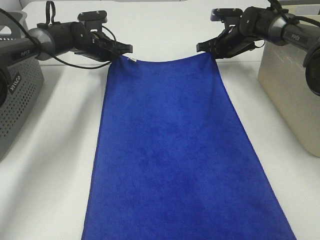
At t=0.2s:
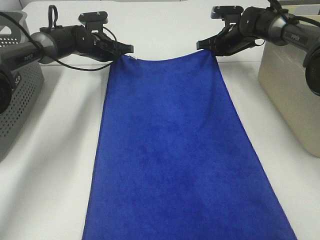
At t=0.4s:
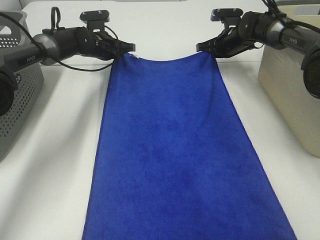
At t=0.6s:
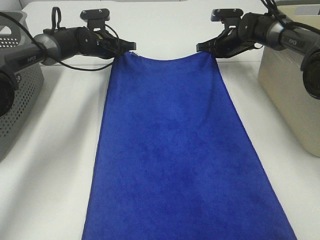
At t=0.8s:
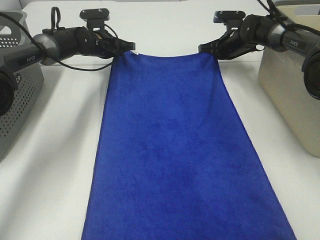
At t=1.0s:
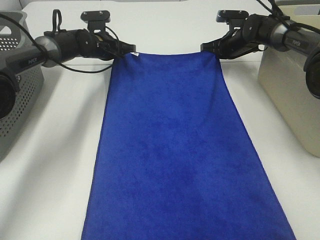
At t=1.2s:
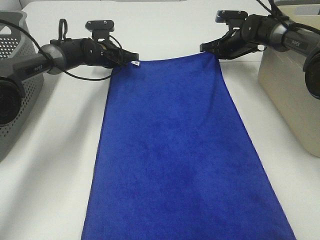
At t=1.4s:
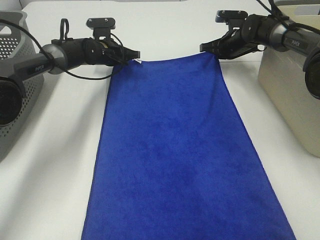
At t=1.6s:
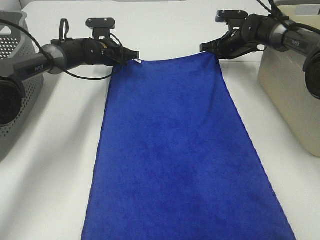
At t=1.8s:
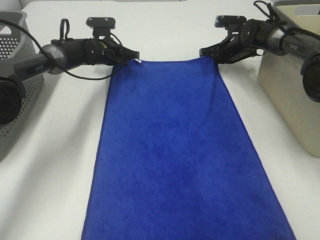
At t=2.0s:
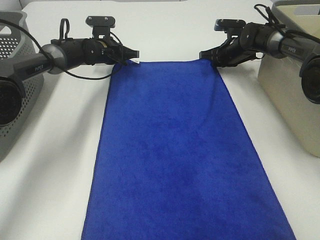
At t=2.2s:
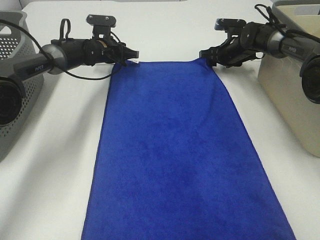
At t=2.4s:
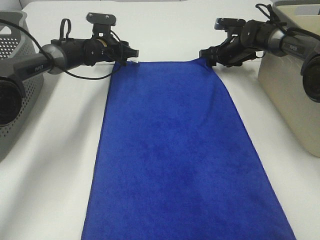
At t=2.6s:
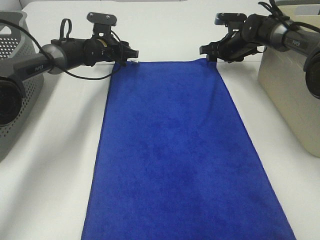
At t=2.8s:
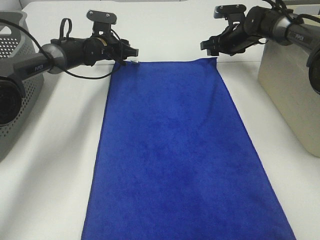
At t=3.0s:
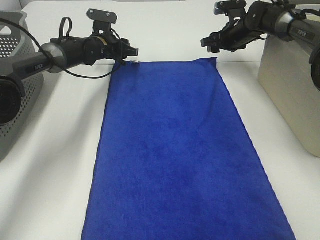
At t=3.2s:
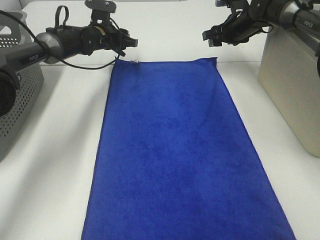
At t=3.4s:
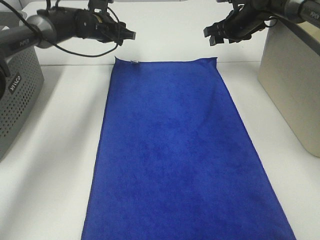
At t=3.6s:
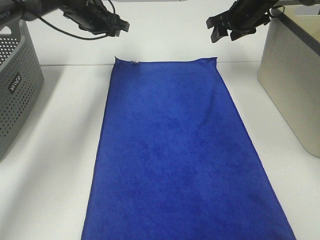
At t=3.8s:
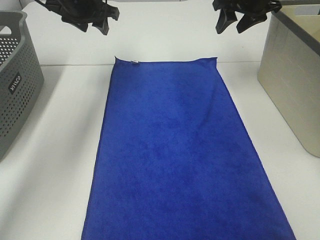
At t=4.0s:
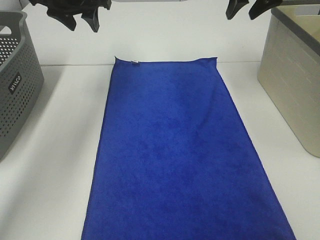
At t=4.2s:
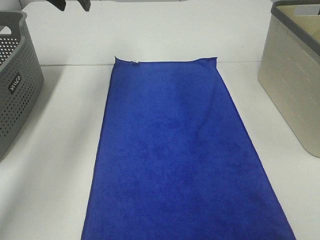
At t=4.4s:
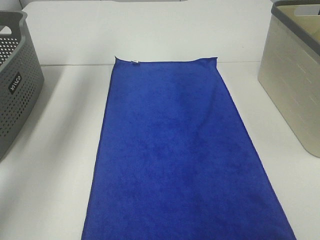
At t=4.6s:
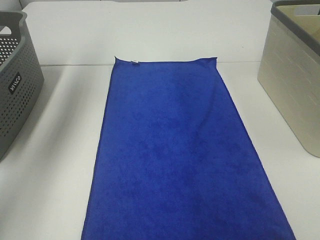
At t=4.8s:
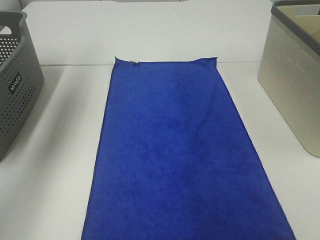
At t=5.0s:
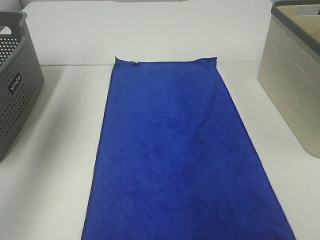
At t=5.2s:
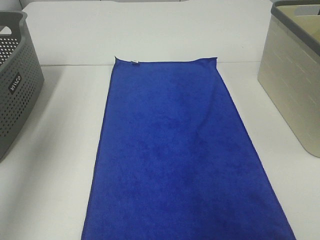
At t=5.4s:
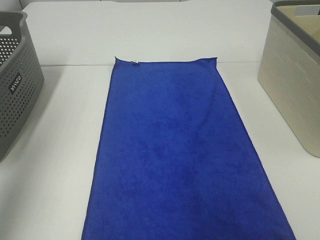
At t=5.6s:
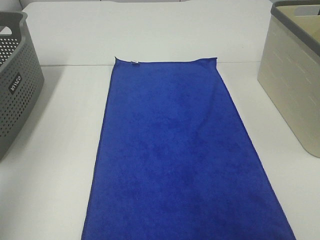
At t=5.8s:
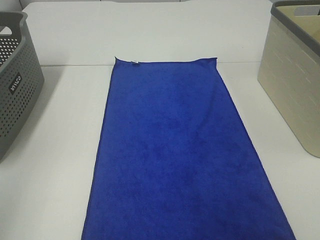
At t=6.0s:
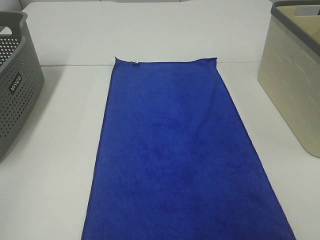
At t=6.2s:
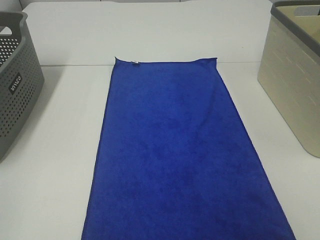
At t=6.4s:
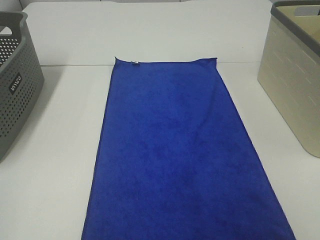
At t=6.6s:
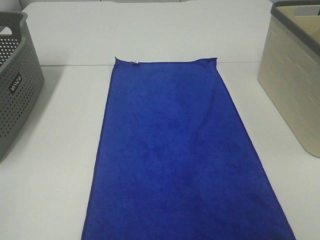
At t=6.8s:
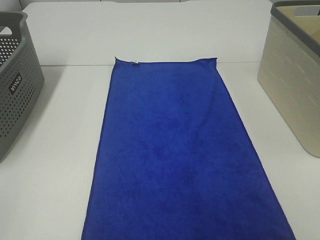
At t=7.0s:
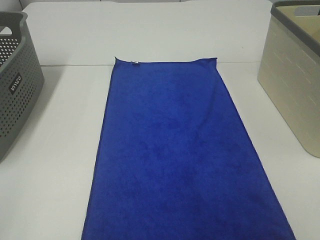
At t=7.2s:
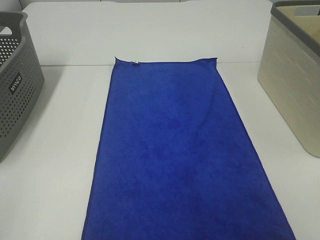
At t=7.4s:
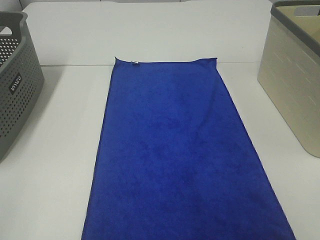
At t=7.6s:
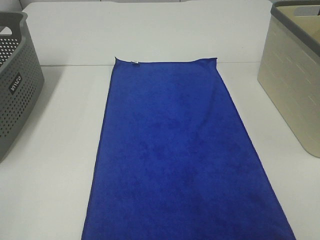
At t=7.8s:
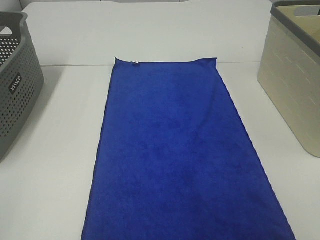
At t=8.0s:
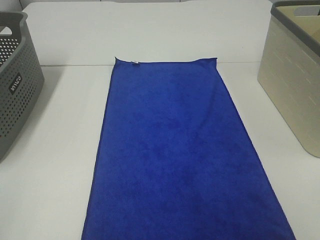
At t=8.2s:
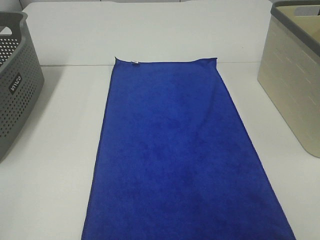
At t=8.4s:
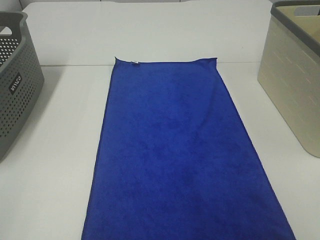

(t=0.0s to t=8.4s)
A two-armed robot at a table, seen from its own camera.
Task of the whole recording: Remove the towel and place it.
t=0.0s - t=1.4s: The grippers make only small movements.
t=1.4s - t=2.8s: The left gripper opens up. Meanwhile the right gripper opens.
t=2.8s - t=4.2s: The grippers both shift upward and backward by about 25 cm.
t=4.2s - t=5.6s: The left gripper moves backward, roughly 35 cm.
t=5.6s - t=7.0s: The left gripper goes about 15 cm backward and downward.

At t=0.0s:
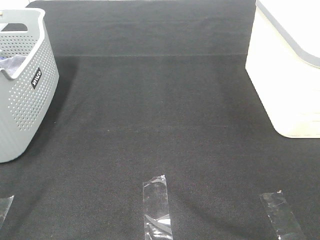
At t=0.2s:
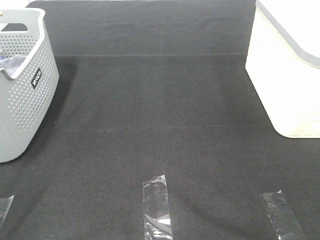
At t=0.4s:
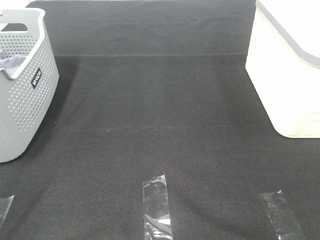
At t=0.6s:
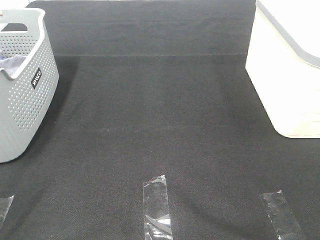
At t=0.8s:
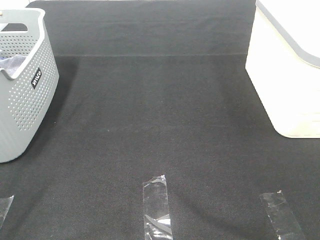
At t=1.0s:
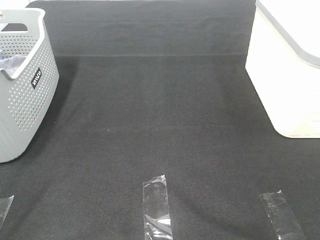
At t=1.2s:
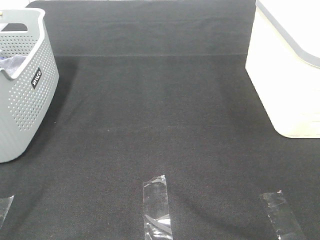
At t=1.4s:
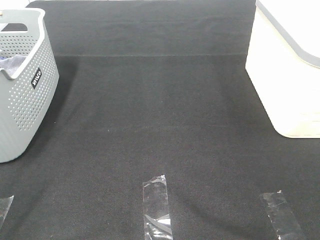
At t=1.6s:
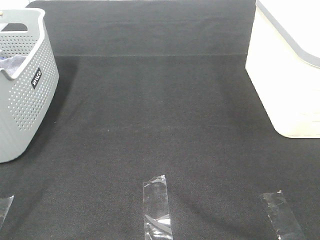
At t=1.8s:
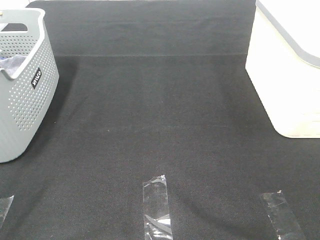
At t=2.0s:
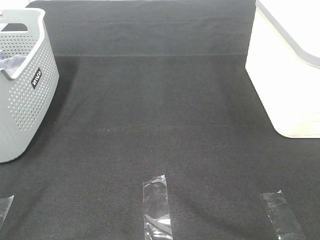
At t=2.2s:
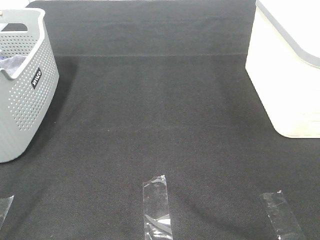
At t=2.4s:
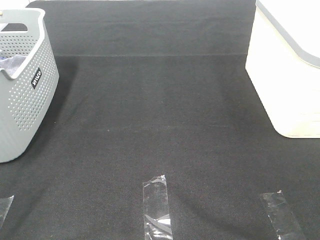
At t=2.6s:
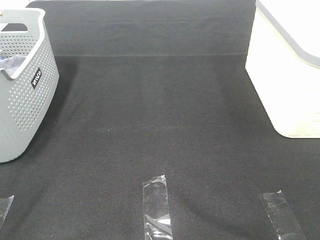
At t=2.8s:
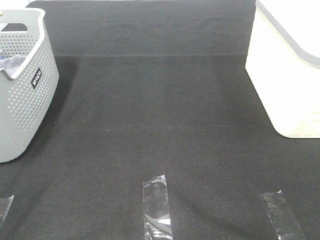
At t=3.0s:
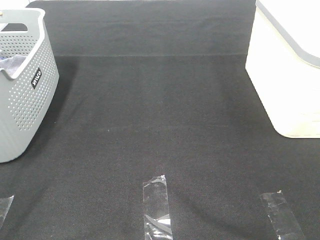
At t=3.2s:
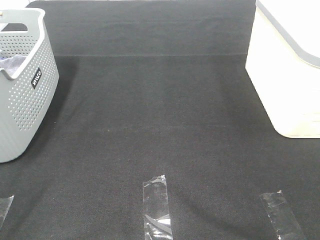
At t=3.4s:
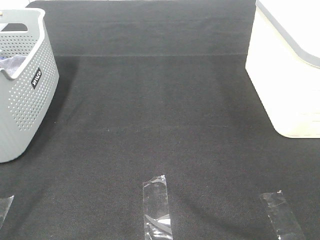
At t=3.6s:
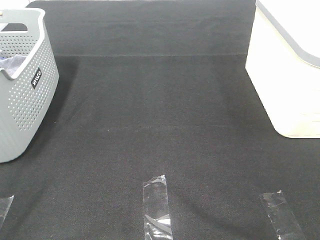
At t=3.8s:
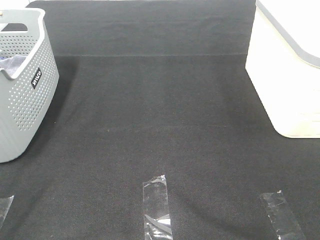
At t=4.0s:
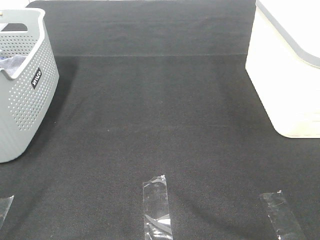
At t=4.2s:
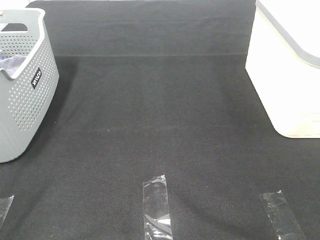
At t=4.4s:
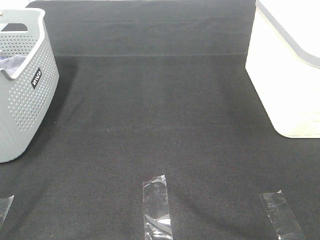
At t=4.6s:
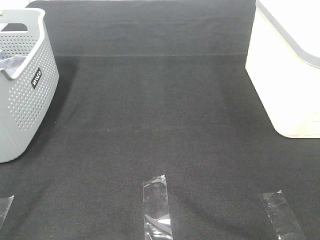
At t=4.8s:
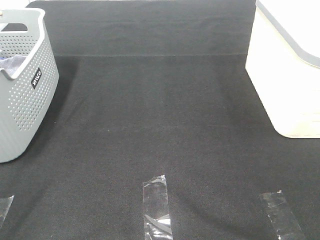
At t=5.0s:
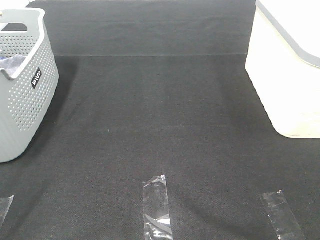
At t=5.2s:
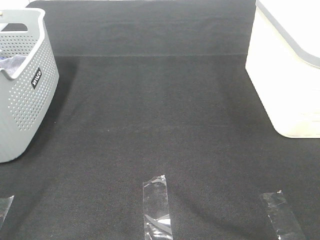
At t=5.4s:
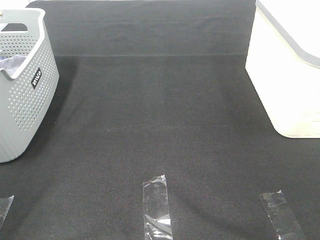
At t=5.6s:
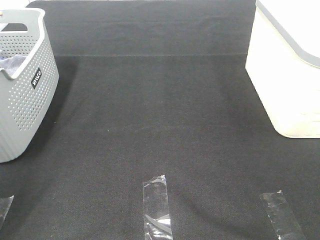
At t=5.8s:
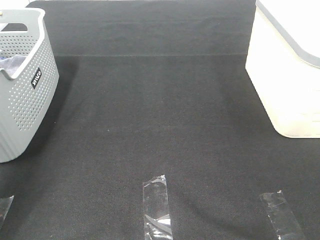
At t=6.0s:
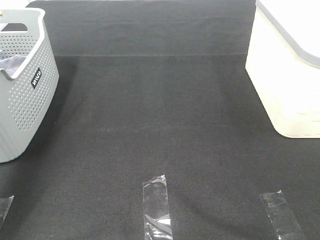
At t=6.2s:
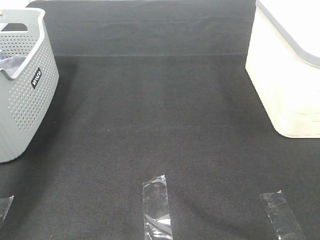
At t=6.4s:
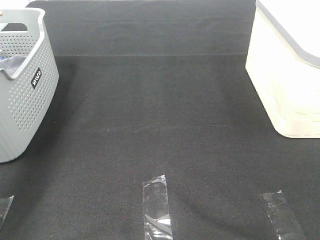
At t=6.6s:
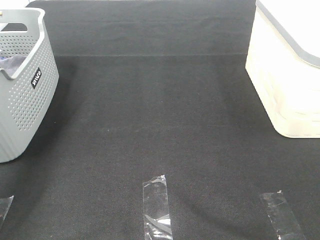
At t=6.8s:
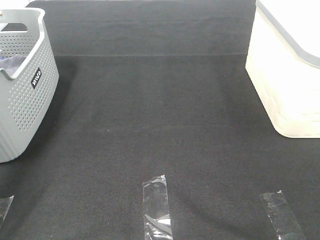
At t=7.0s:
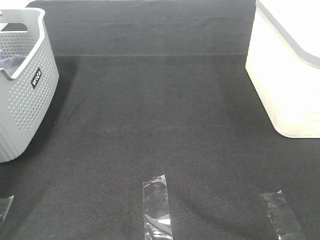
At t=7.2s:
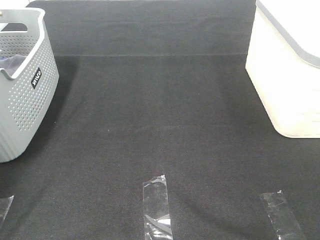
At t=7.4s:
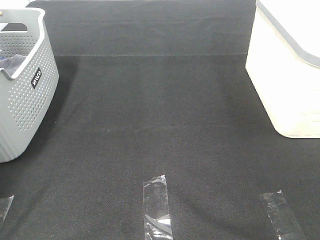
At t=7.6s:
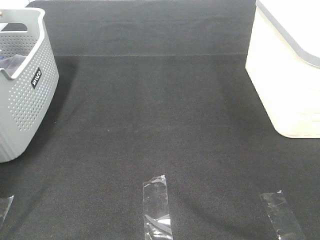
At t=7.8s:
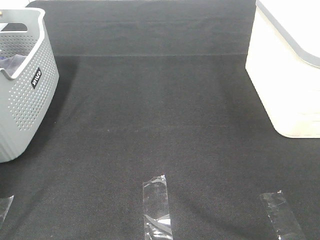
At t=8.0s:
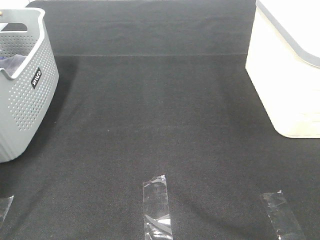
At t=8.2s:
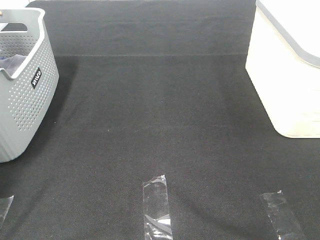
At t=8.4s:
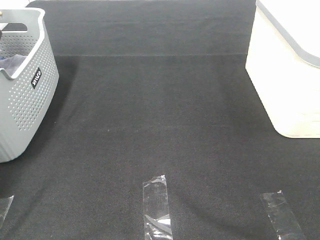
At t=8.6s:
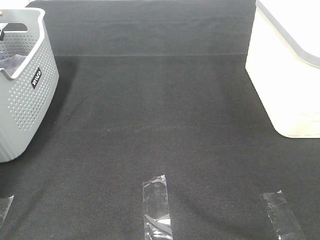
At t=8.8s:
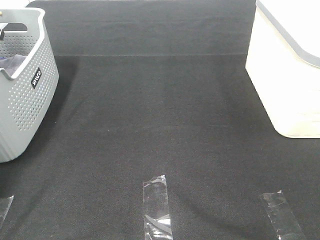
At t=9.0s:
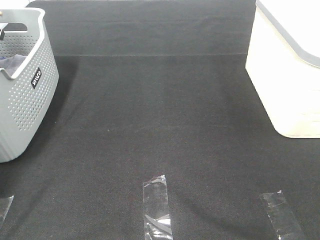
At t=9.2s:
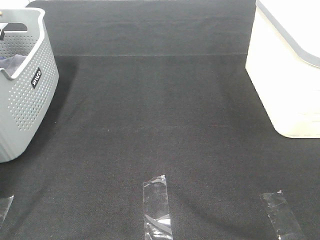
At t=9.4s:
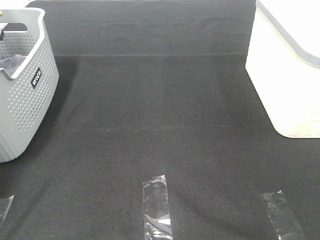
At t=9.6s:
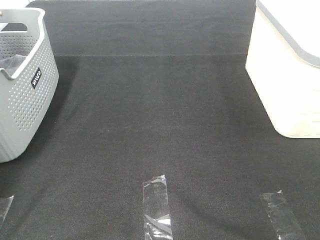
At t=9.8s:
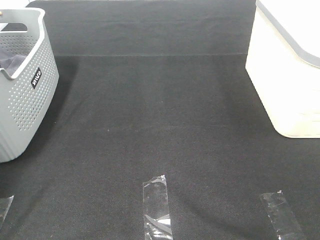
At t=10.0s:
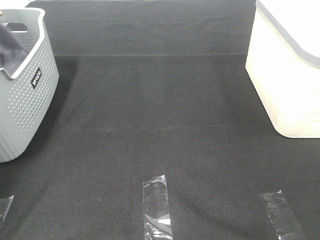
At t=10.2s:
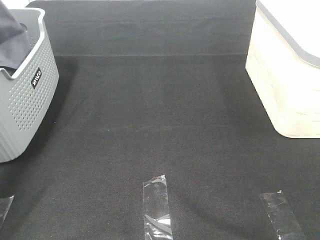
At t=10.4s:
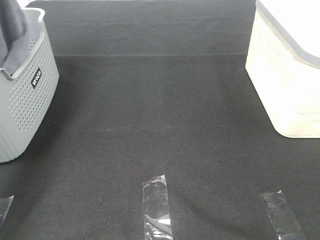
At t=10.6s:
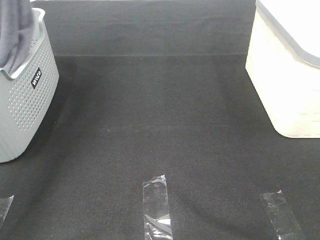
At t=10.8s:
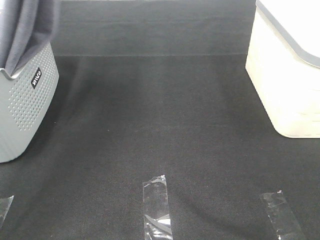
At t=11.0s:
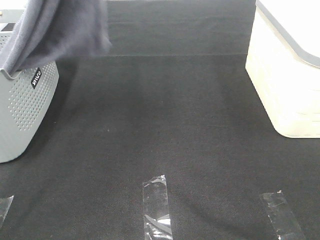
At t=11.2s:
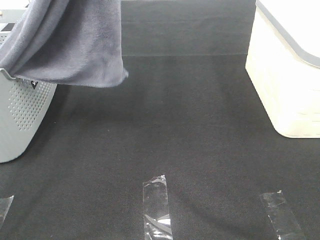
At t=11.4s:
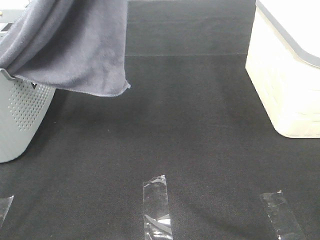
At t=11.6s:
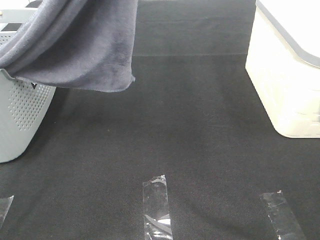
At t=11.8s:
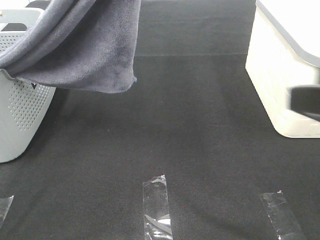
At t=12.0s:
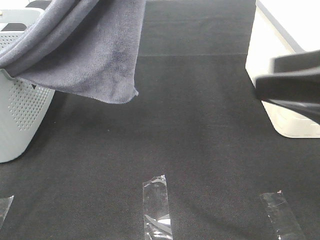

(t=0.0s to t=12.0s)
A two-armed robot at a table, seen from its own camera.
Task of the whole recording: Remove the towel and place it.
t=0.0s - t=4.4s: Both grippers stay about where they are.
t=4.4s - t=6.0s: The left gripper heads forward, covering roughly 30 cm.
t=6.0s - t=7.6s: The left gripper travels forward and to the left by roughly 25 cm.
t=9.0s - t=10.4s: The left gripper shifts roughly 30 cm upward, to the right and backward.
t=10.4s - t=12.0s: The left gripper is displaced to the right and backward by approximately 25 cm, while the right gripper moves forward, roughly 15 cm.

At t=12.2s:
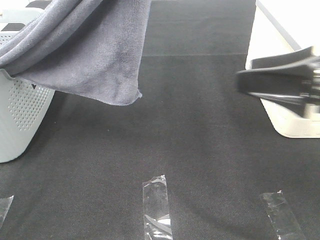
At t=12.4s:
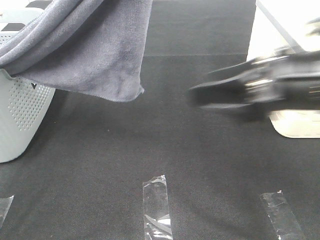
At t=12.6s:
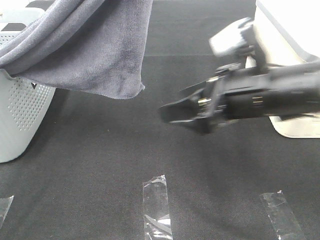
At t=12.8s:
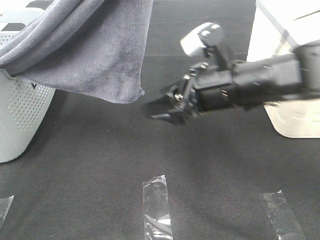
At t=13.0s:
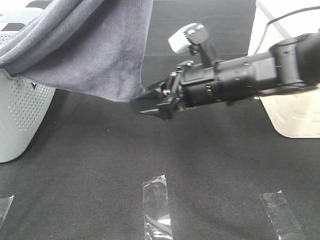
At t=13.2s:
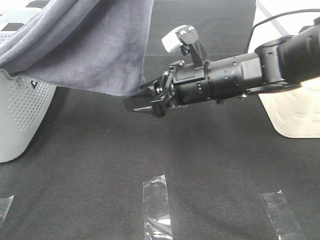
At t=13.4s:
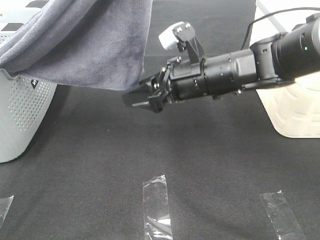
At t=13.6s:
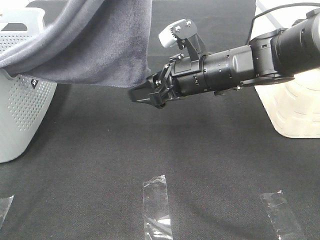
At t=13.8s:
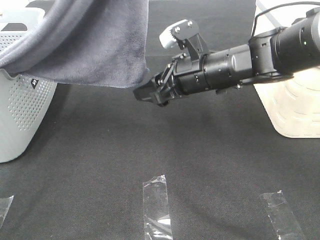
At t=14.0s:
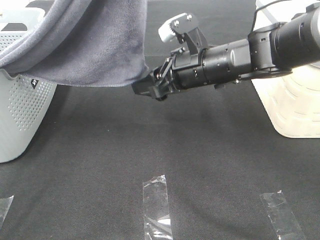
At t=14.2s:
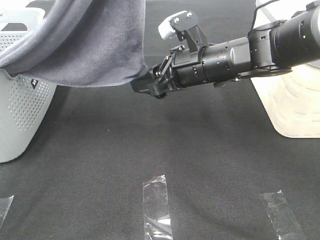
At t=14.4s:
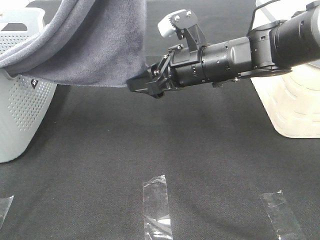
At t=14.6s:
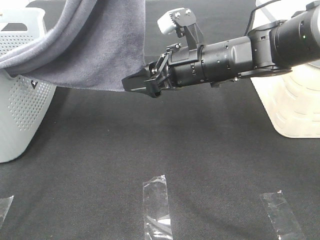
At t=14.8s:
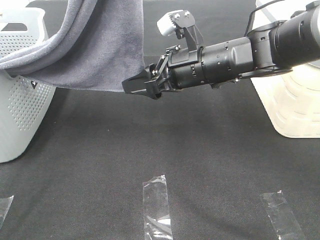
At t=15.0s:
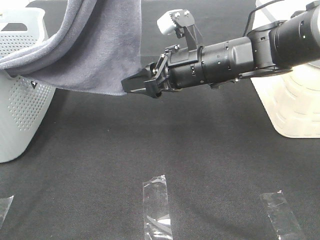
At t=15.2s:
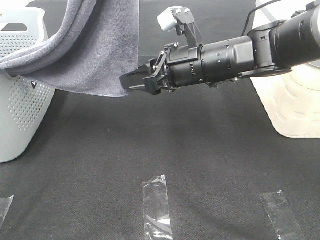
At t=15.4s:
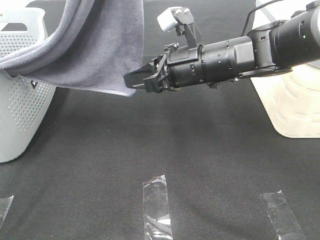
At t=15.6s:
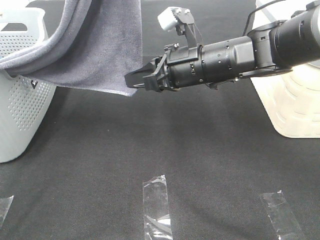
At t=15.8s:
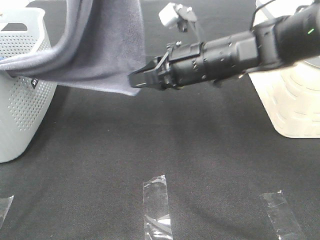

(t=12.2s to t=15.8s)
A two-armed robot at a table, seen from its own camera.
Task of the whole recording: Remove the towel and place it.
t=12.2s - t=14.0s: The right gripper travels forward, to the left and downward by some 20 cm.
t=14.0s - t=15.8s: The right gripper closes up.
